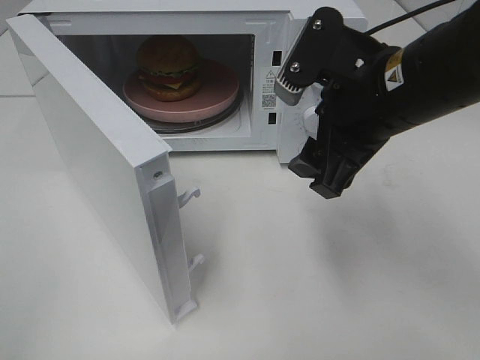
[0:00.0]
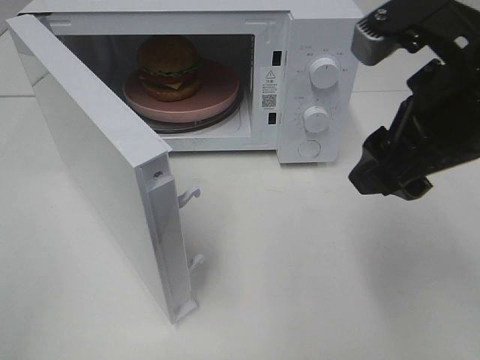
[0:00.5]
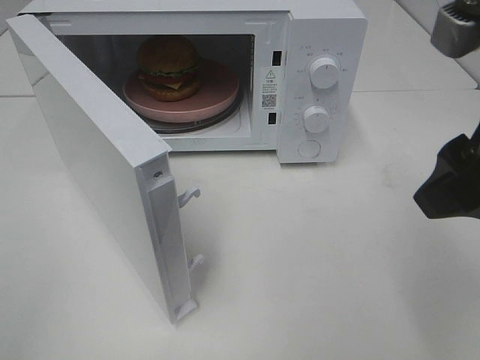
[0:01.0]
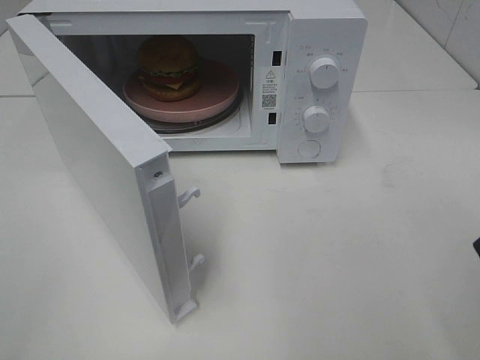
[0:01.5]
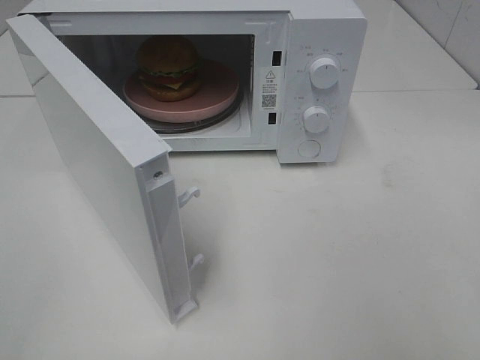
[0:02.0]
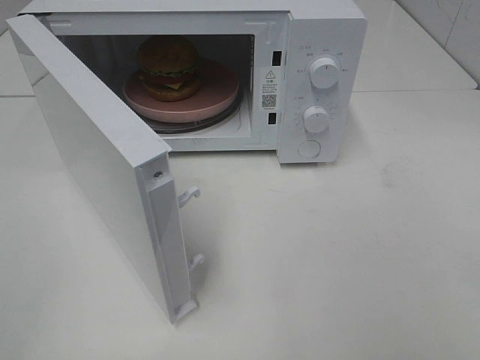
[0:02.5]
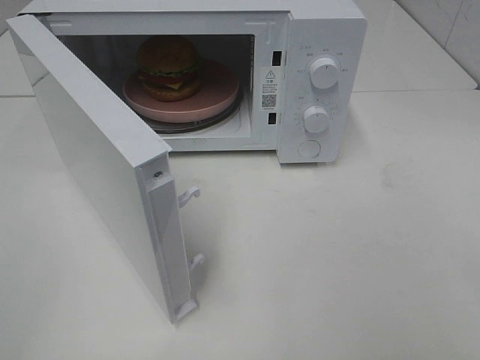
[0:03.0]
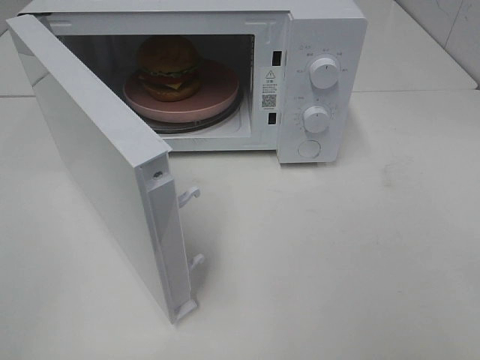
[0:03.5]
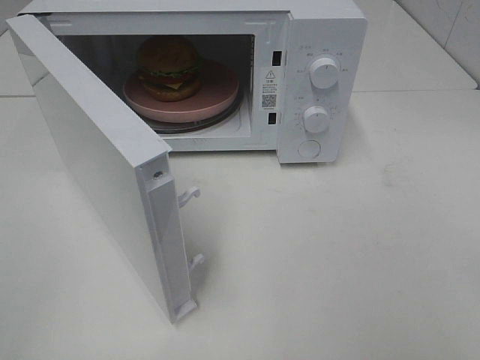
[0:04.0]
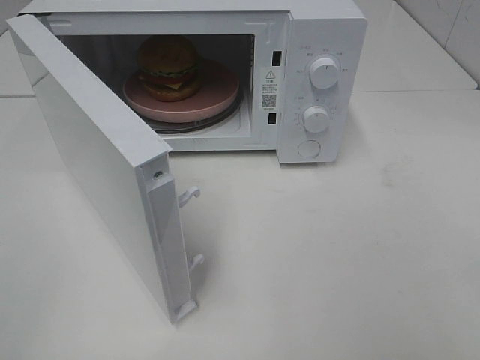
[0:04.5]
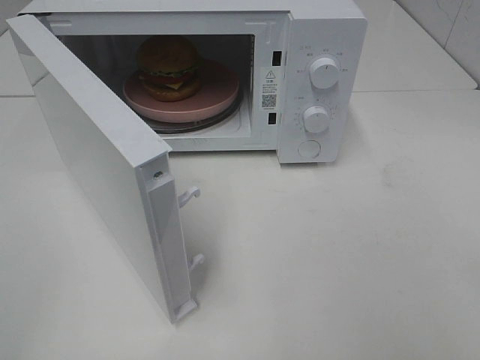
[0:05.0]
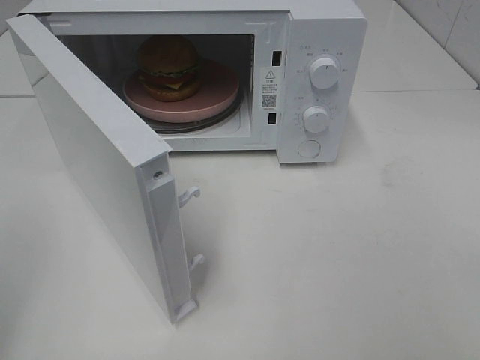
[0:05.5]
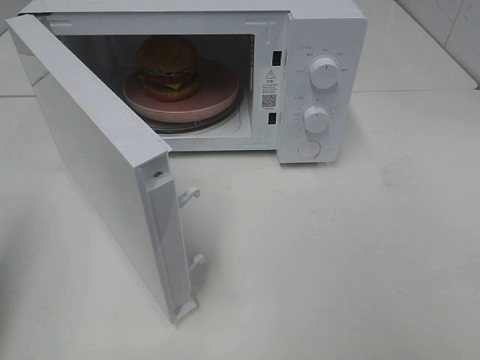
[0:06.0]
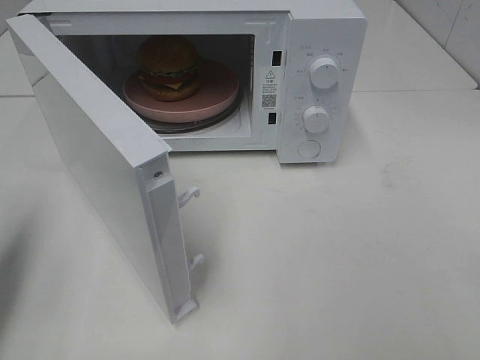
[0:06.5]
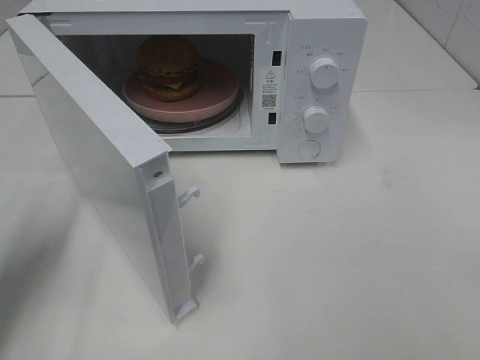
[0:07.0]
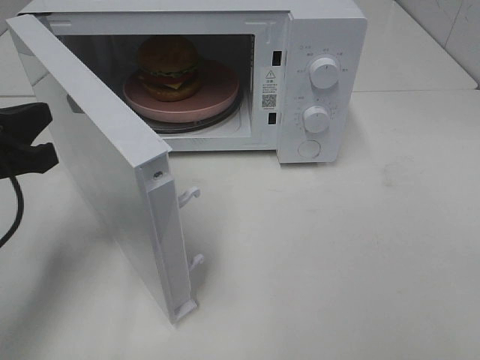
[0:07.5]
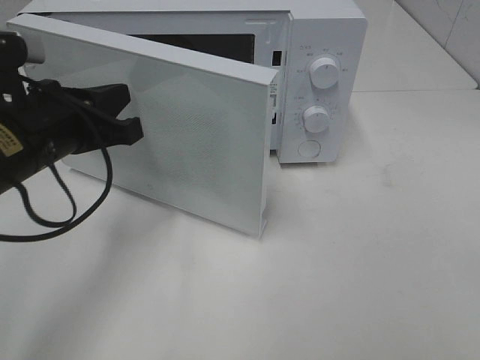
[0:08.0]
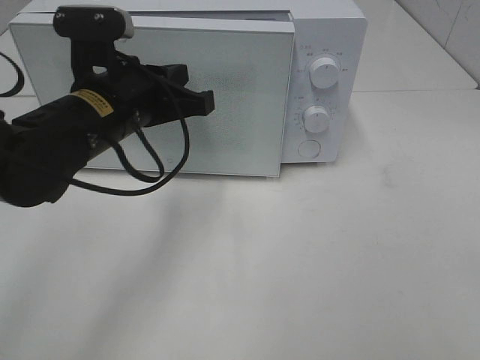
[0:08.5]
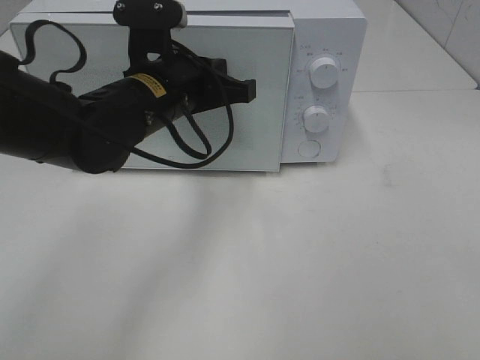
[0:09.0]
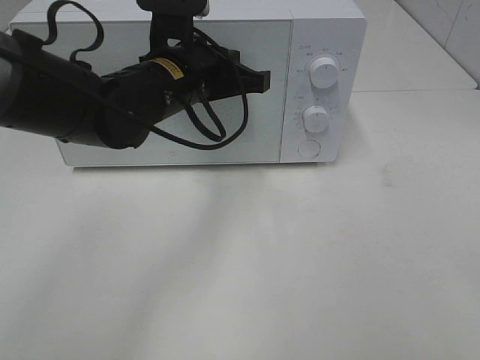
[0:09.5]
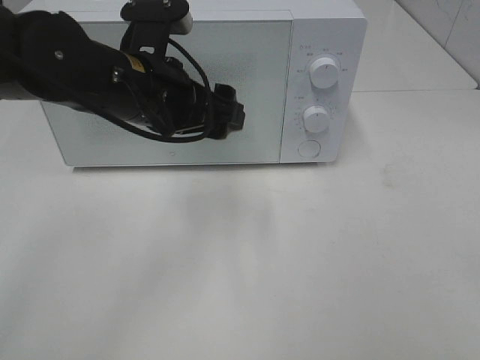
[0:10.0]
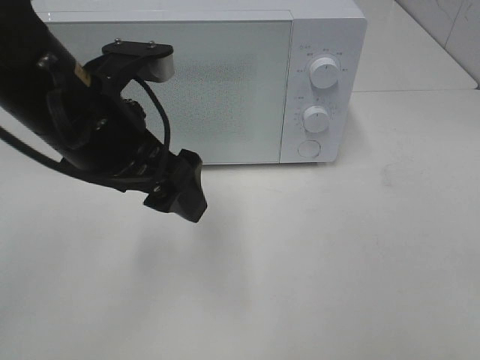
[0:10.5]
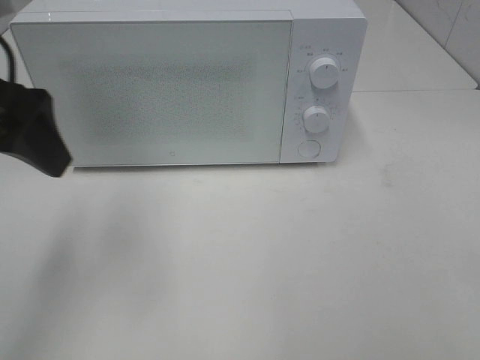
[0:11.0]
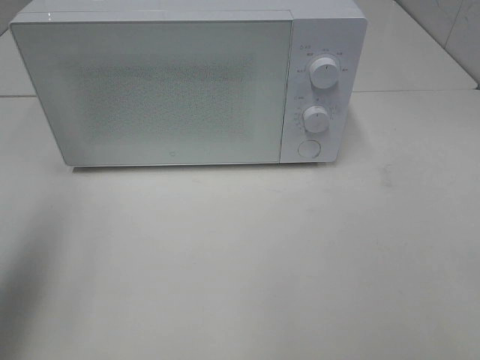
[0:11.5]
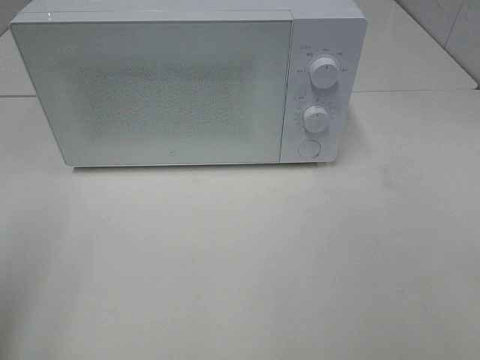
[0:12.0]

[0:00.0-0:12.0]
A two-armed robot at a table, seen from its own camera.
Task of the whole recording: Heat the burger.
Step, 0:00.0 to 0:09.5: Left hand: close the microwave door.
0:00.0 to 0:02.0: The right gripper is displaced backward and to the right by some 25 cm.
0:04.0 to 0:06.0: The left gripper heads forward, covering approximately 10 cm, and closes.
0:06.0 to 0:08.0: The left gripper moves to the right, forward and downward, roughly 20 cm.
0:08.0 to 0:10.0: The left gripper travels to the right by roughly 10 cm, and opens its fingers.
0:10.0 to 0:12.0: The left gripper is displaced to the left and backward by about 30 cm.

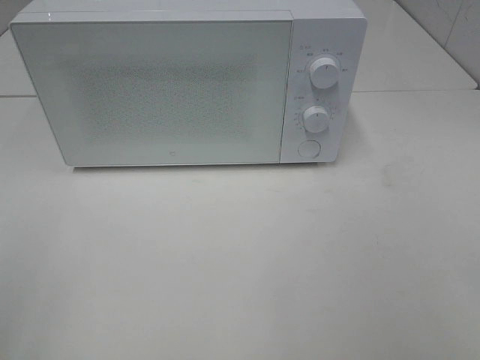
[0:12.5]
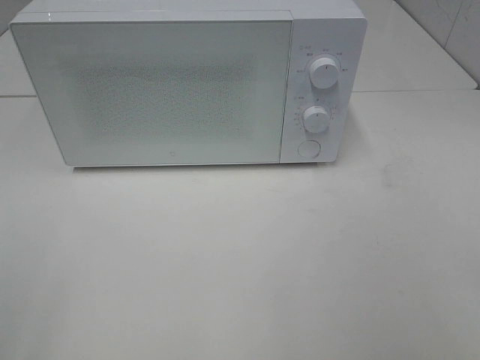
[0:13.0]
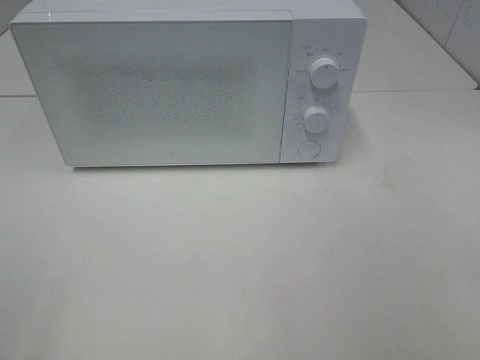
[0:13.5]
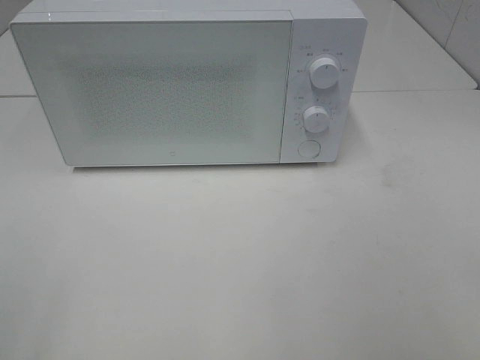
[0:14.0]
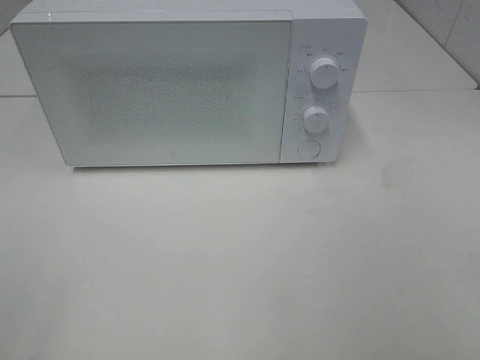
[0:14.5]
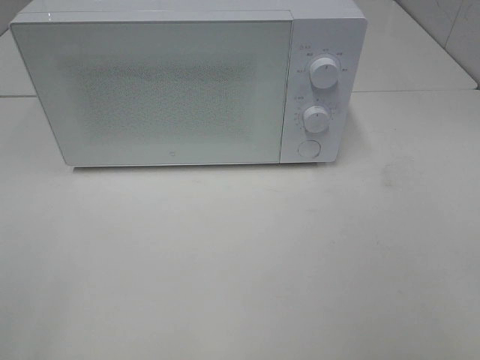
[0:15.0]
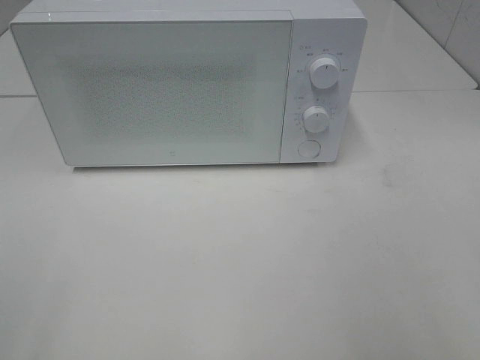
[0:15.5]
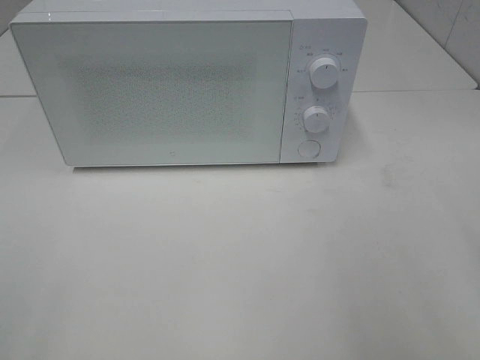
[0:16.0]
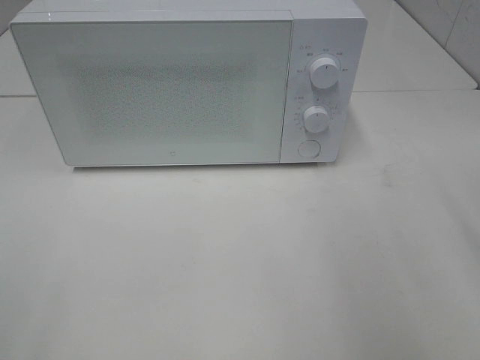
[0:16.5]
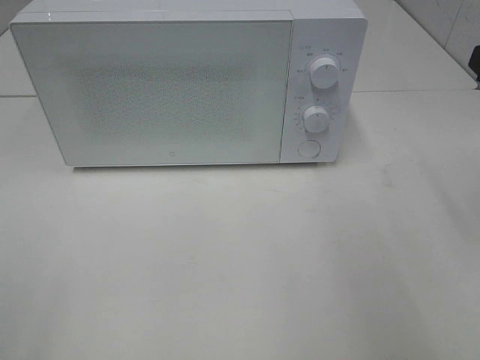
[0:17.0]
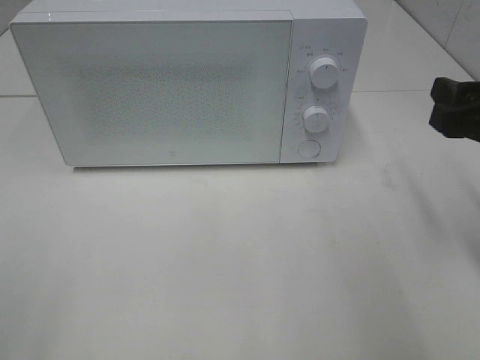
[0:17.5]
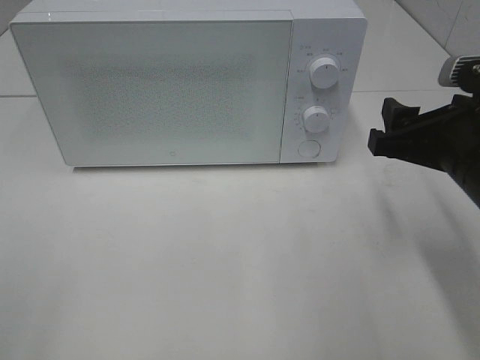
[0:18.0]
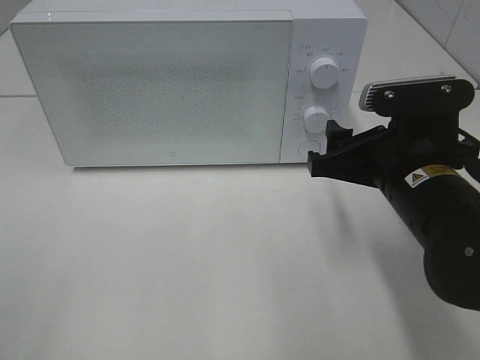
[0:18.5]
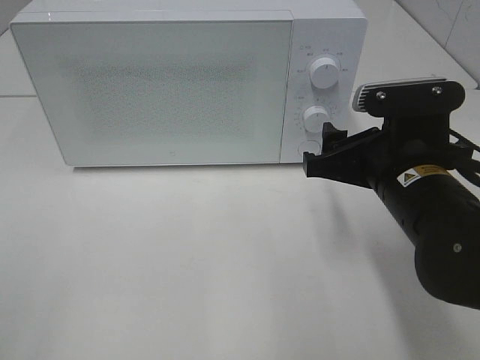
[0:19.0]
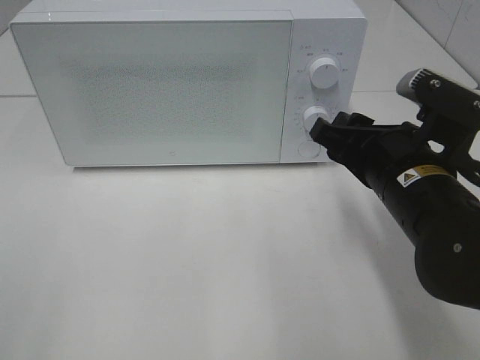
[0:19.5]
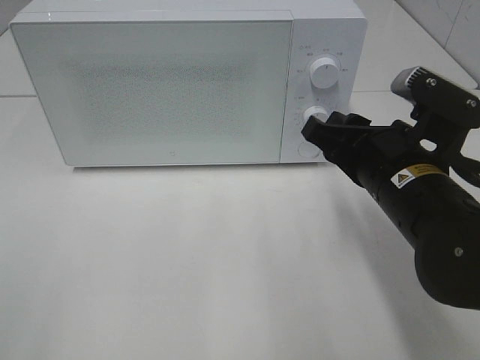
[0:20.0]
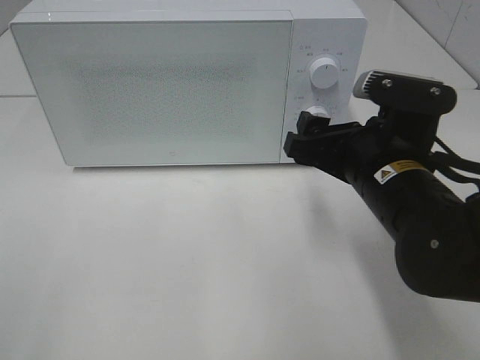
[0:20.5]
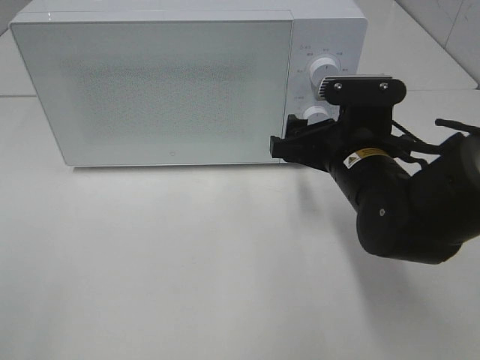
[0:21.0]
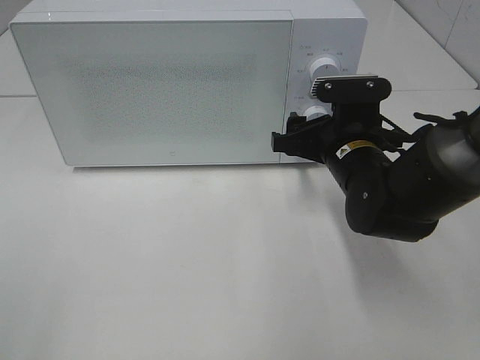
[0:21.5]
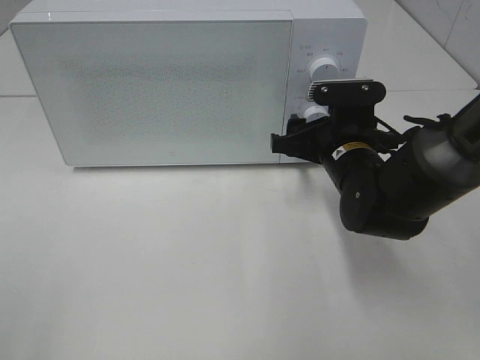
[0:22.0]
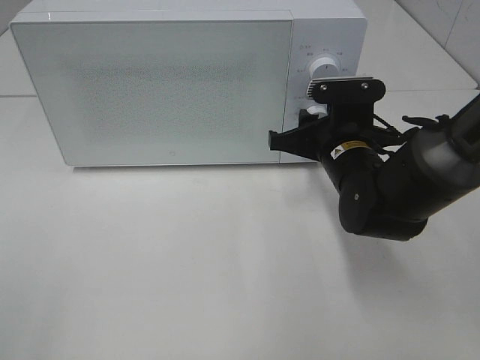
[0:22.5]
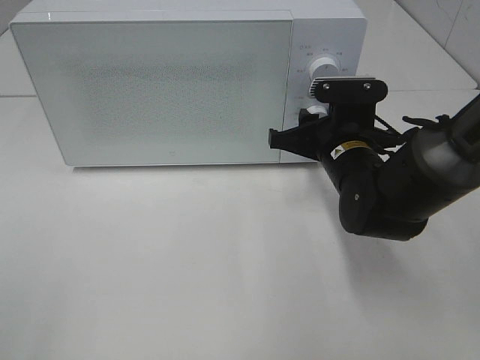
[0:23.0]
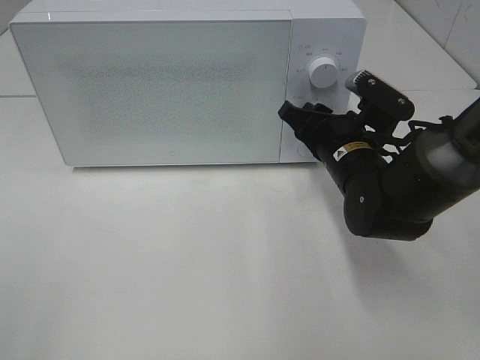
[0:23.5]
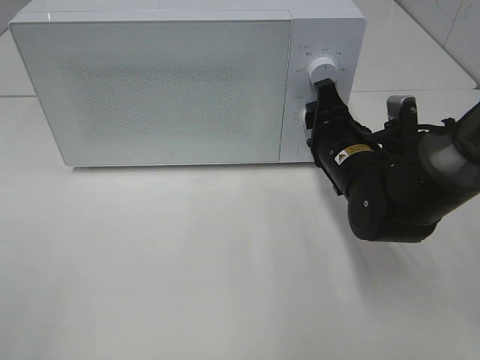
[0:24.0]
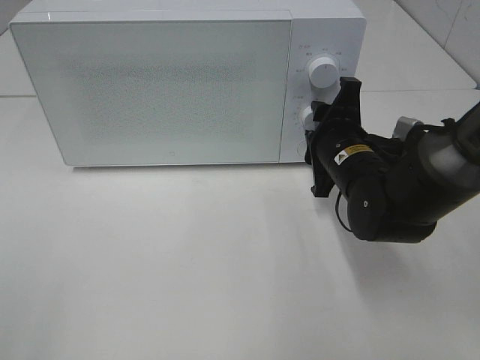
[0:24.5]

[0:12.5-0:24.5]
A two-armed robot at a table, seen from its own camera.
Task of the whole recording: Heat the burger.
0:16.5 to 0:18.5: The right gripper moves to the left, downward and forward, approximately 20 cm.
0:20.5 to 0:22.5: The right gripper goes approximately 10 cm forward, and closes.

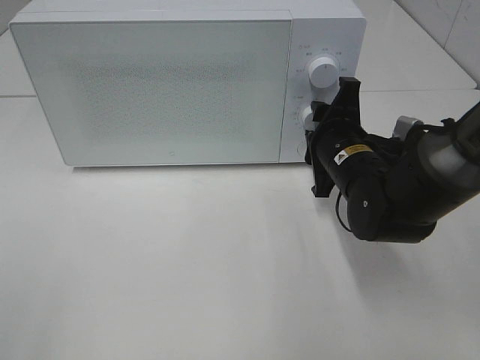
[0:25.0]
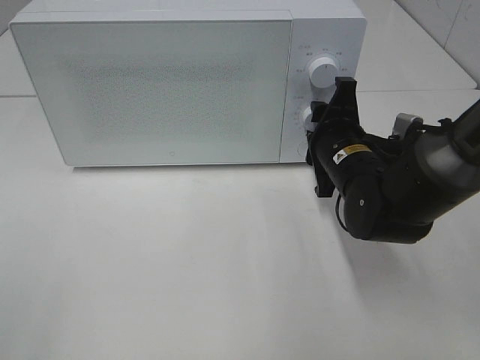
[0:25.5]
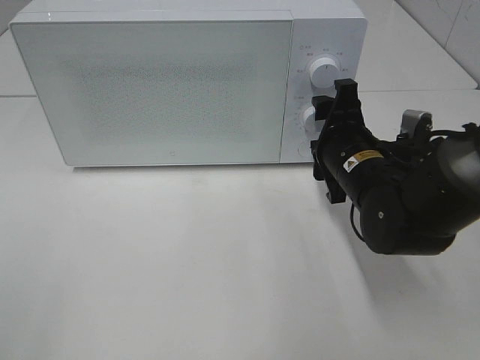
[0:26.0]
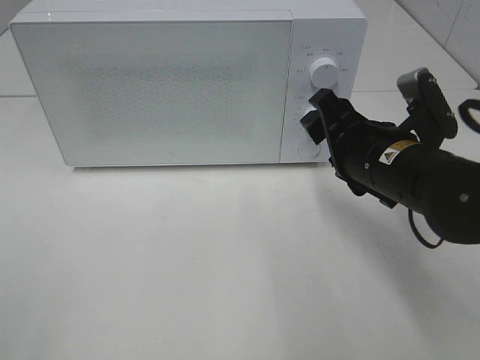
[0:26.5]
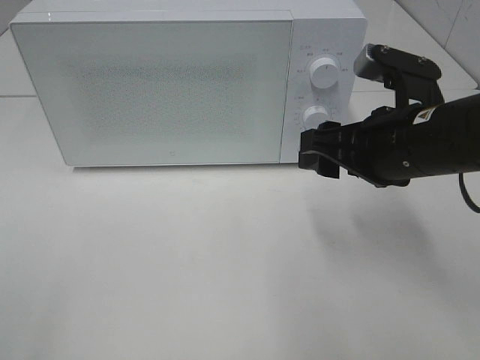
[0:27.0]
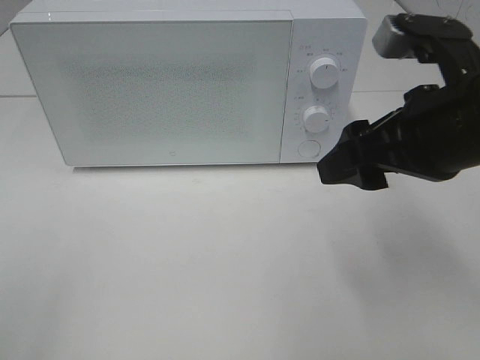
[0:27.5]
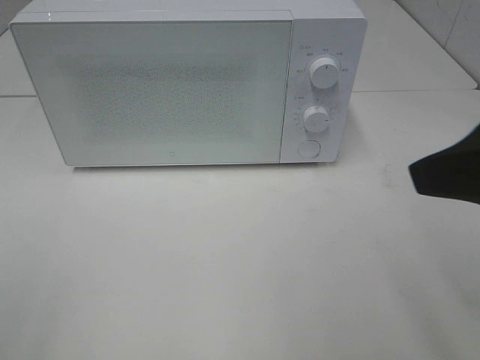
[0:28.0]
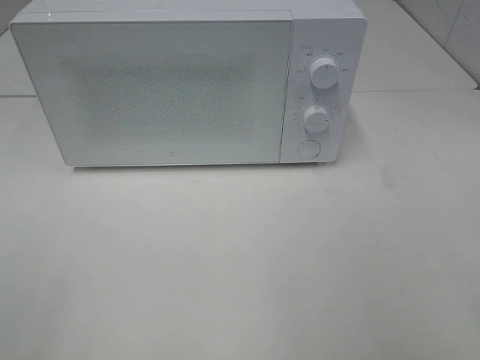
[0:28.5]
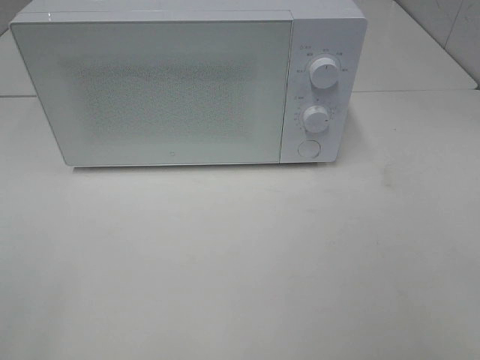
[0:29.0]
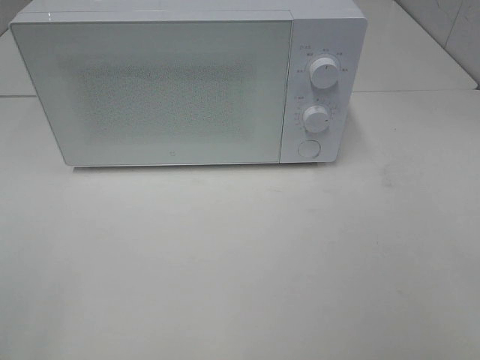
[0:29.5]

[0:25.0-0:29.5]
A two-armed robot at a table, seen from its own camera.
Task of the whole recording: Heat the burger.
0:25.0 to 0:27.0: The right gripper shifts roughly 10 cm upward and backward.
0:27.0 to 0:29.5: The right gripper goes approximately 30 cm backward and to the right.
